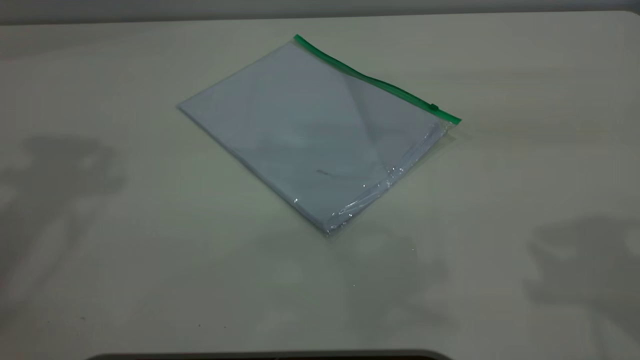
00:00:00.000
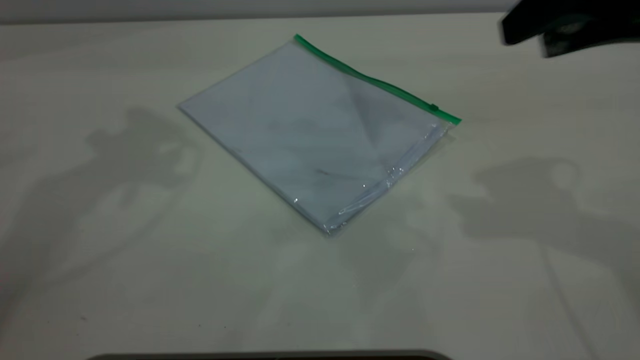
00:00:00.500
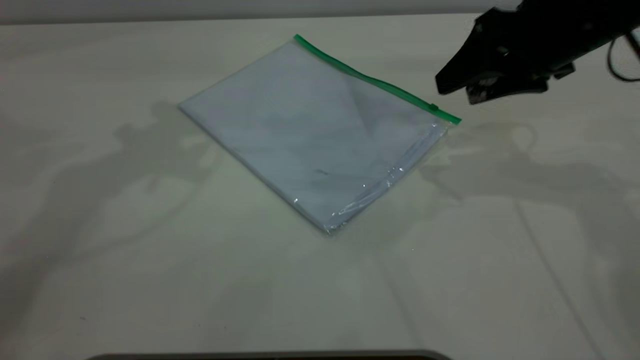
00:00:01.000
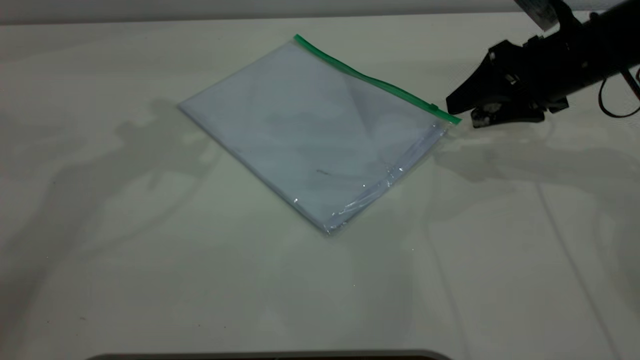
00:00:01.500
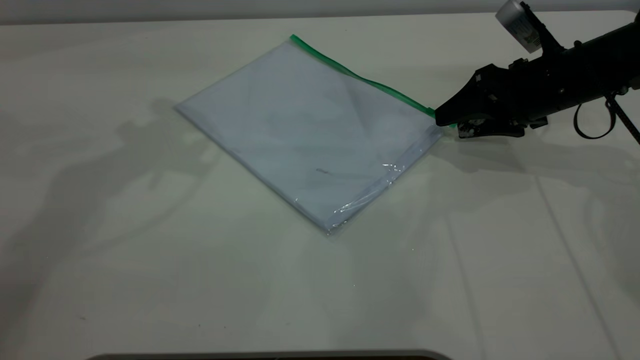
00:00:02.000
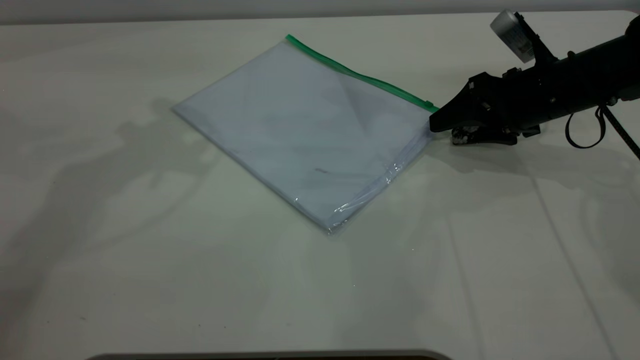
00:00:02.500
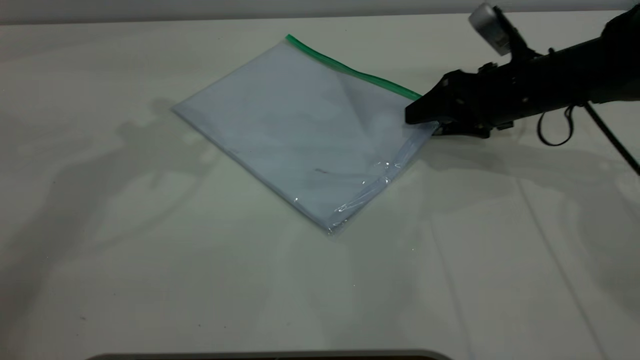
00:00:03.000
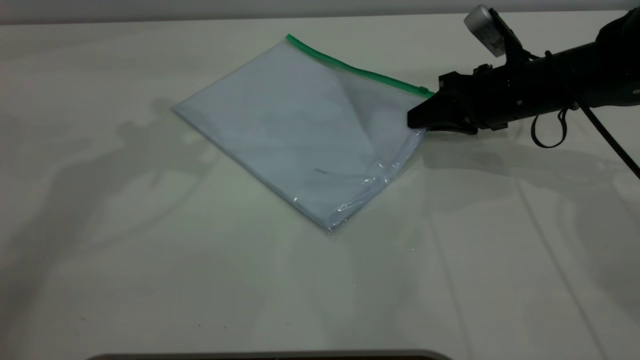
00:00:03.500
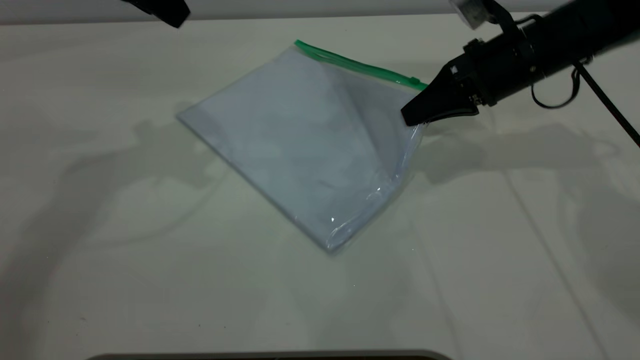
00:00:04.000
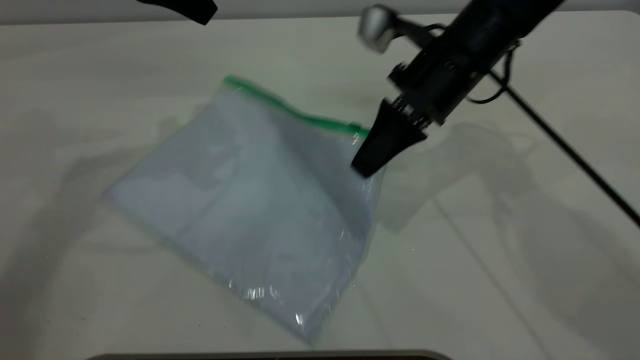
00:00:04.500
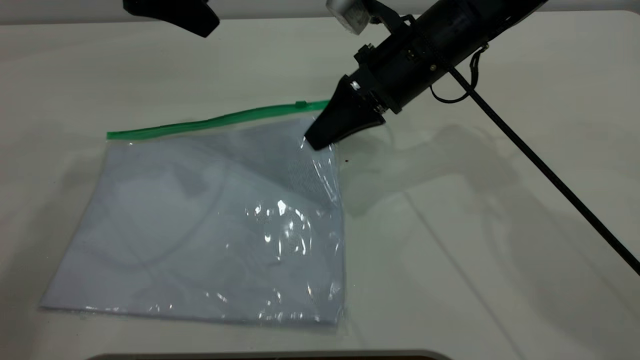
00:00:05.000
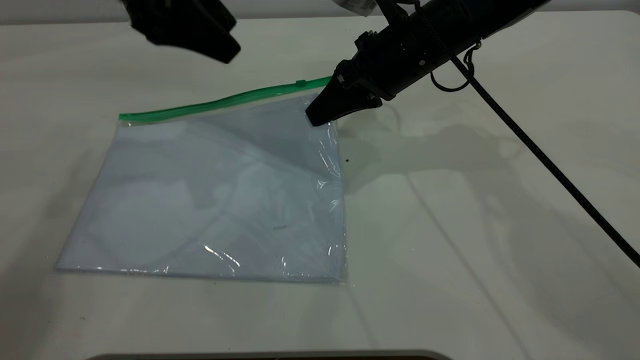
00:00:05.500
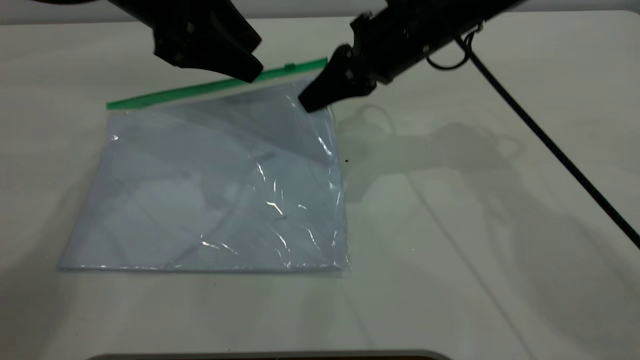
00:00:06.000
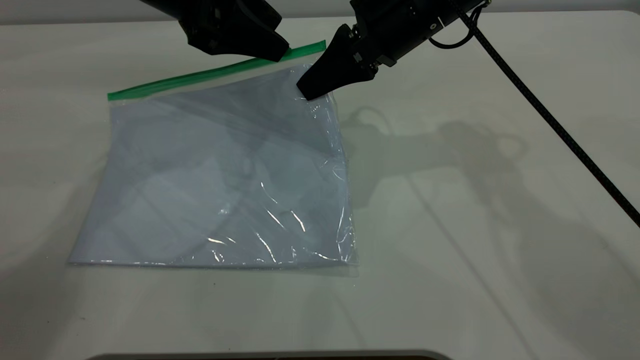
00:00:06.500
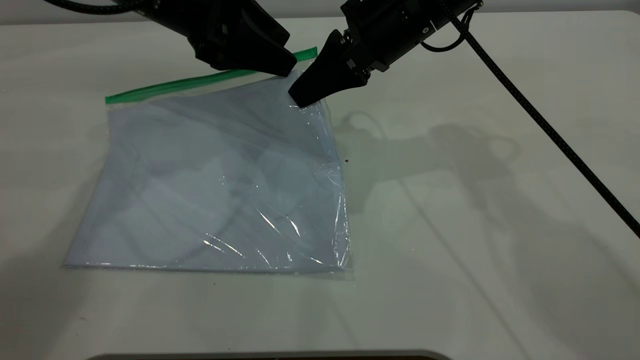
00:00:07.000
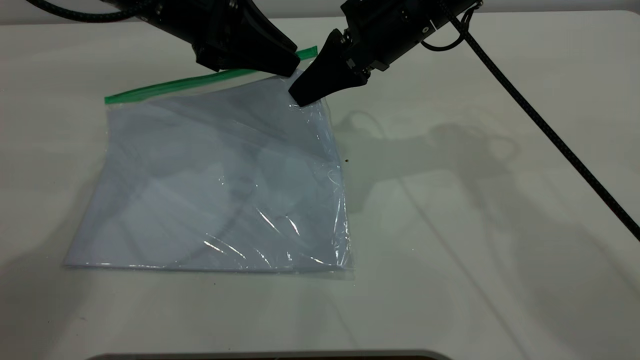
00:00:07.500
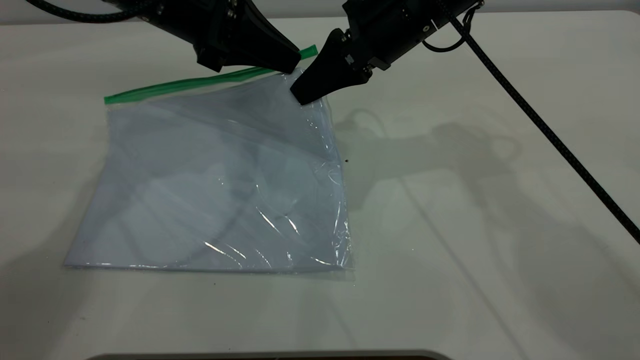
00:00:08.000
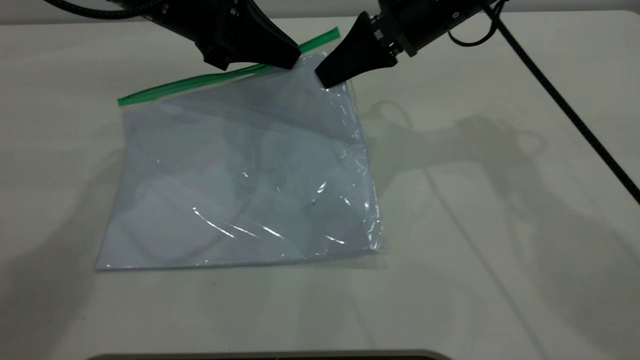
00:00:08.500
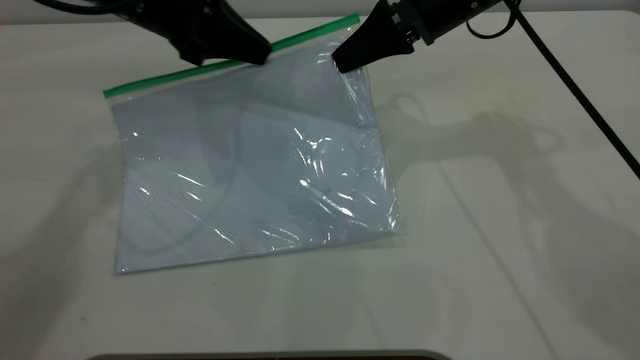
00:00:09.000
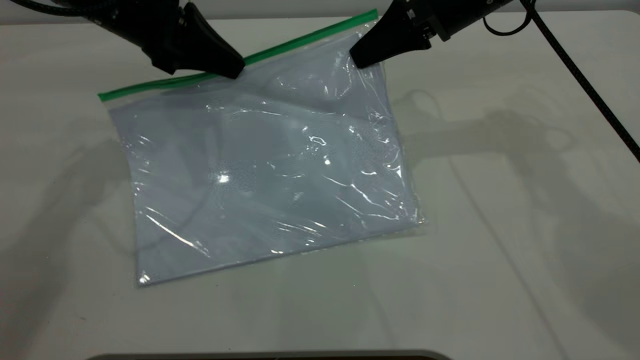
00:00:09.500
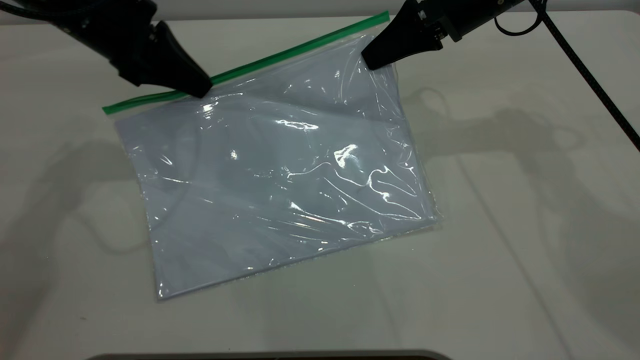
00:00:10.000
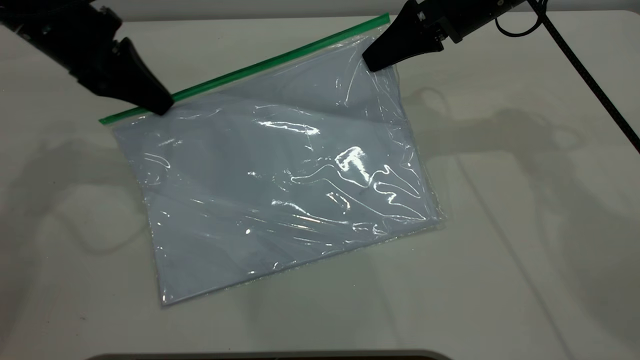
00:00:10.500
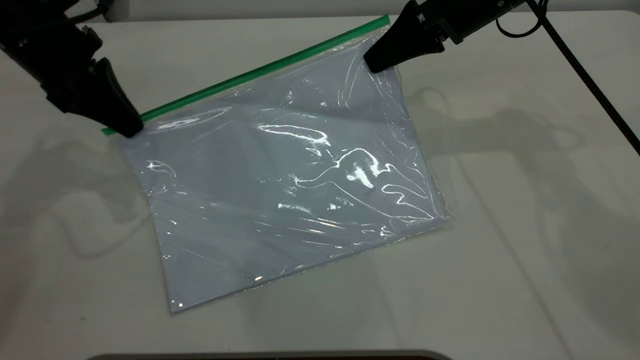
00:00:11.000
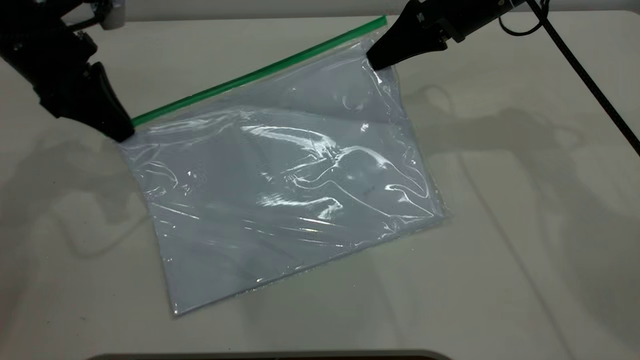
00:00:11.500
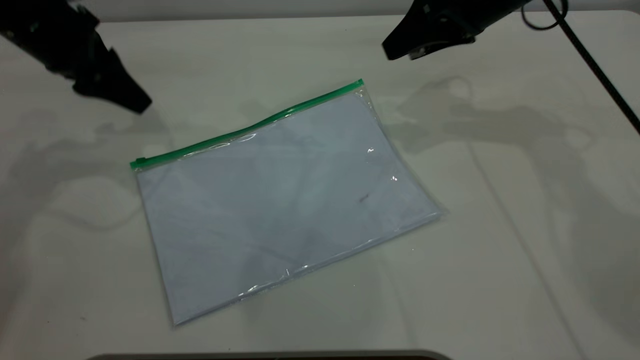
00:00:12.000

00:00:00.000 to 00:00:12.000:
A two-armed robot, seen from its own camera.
Step, 00:00:00.000 to 00:00:03.500: Pick up the transparent plastic bag with the right gripper.
Step, 00:00:04.000 to 00:00:11.000: Pulling up the zipper on the transparent plastic bag with the left gripper to close it.
00:00:00.000 to 00:00:02.000: The right gripper travels downward and forward by about 30 cm.
00:00:02.000 to 00:00:04.000: The right gripper is displaced to the left by about 5 cm, and closes up.
00:00:04.000 to 00:00:06.000: The right gripper heads to the left, covering roughly 10 cm, while the left gripper heads downward, covering some 5 cm.
00:00:06.000 to 00:00:08.000: The left gripper closes.
00:00:08.000 to 00:00:10.000: The left gripper goes some 10 cm to the left, while the right gripper goes some 10 cm to the right.
00:00:10.000 to 00:00:12.000: The right gripper opens up. The left gripper goes about 5 cm to the left, and opens up.
